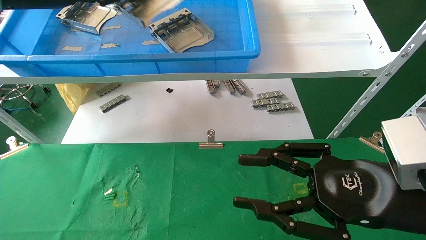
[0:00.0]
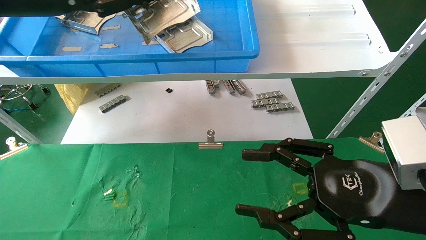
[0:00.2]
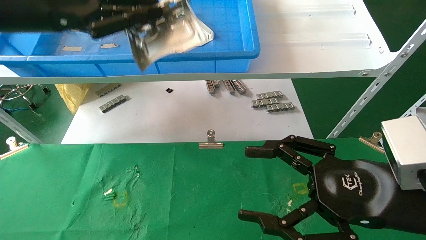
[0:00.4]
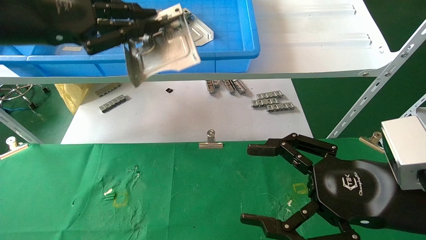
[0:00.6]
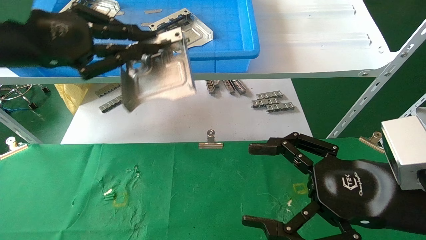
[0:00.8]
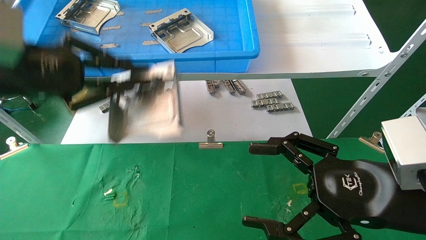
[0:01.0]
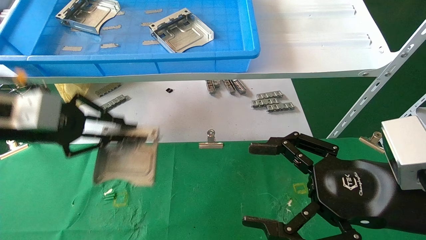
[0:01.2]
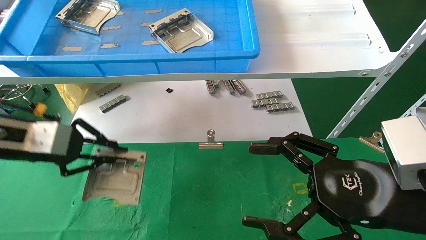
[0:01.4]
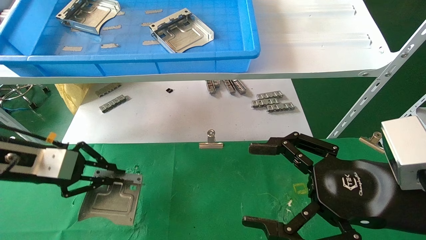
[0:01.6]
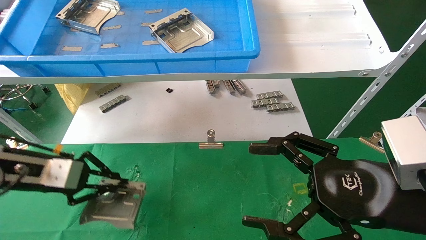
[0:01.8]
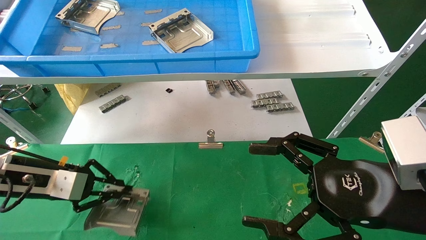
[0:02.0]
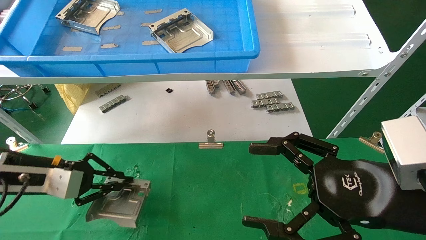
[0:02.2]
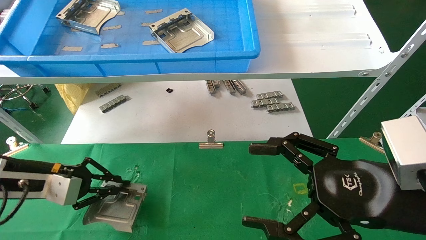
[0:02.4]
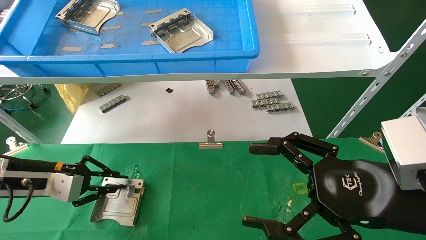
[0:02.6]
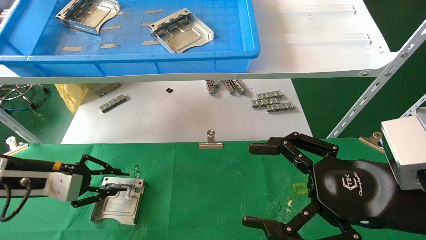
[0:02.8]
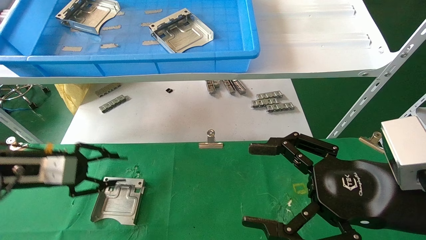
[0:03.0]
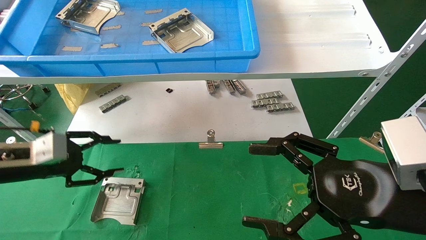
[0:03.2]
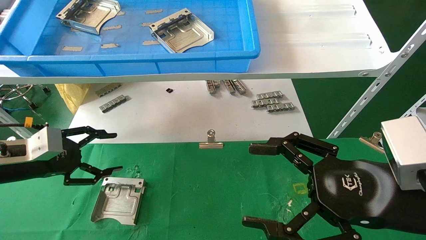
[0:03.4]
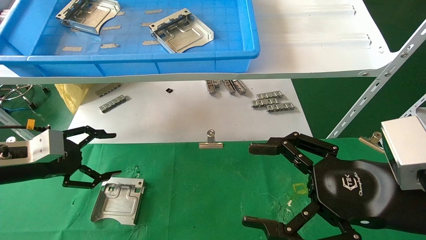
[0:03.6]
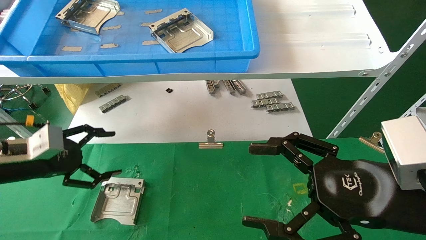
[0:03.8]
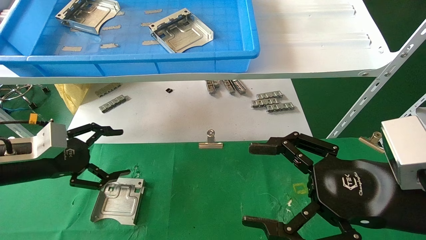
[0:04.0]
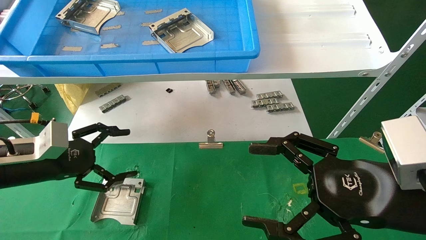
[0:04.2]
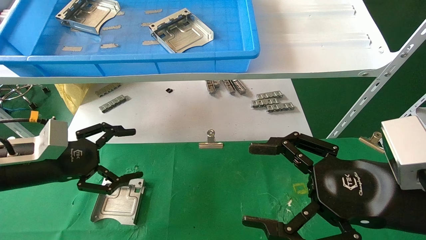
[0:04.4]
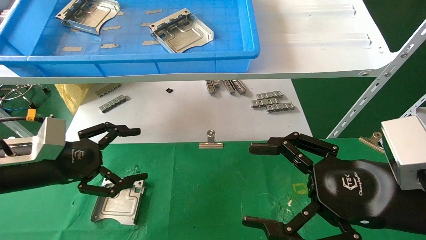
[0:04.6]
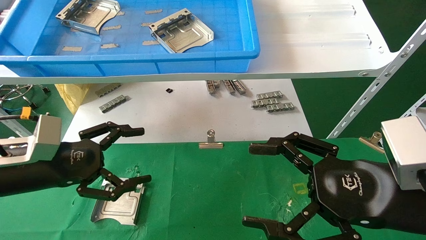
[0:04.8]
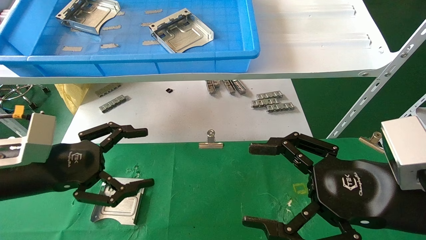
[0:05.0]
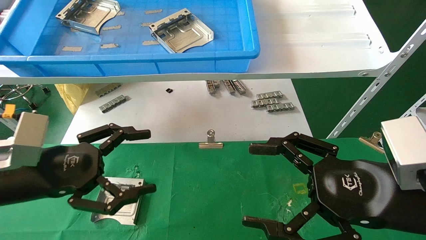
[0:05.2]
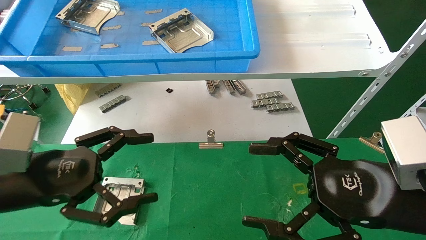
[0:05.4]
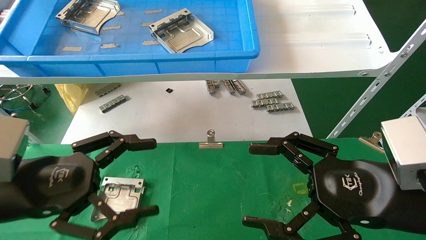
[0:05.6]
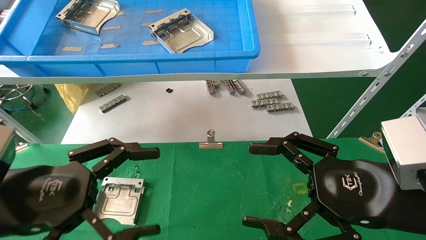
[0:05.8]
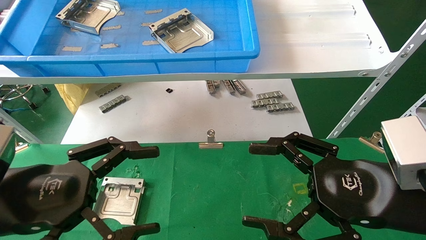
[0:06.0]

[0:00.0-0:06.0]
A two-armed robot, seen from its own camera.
Task of the whole recording: use the mechanical arm to pick up the parts and place them on the table.
Step, 0:00.0 to 0:02.8: Place the hard drive bracket into the box.
0:00.0 to 0:01.6: The right gripper opens up. Meanwhile the left gripper shifts about 25 cm downward.
0:01.6 to 0:03.0: The left gripper moves about 5 cm.
0:03.0 to 0:04.4: The left gripper changes place by some 5 cm, and opens its fingers.
0:04.4 to 0:06.0: The left gripper shifts about 15 cm backward and to the right.

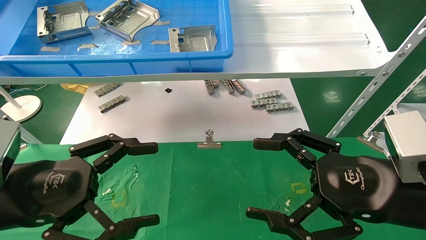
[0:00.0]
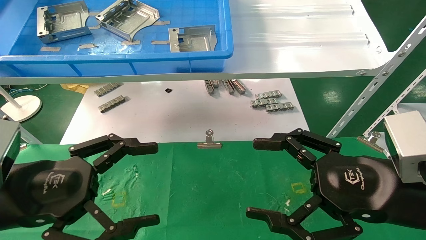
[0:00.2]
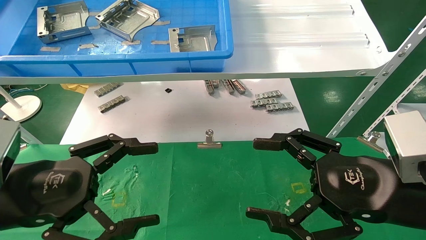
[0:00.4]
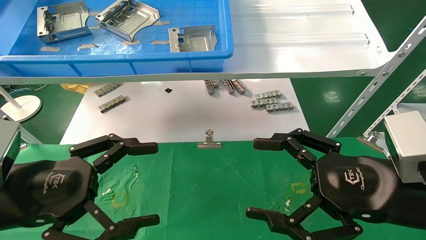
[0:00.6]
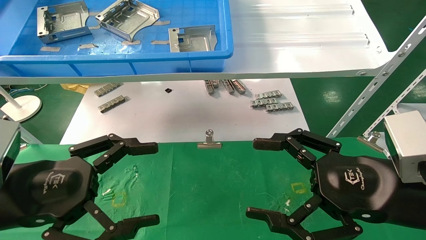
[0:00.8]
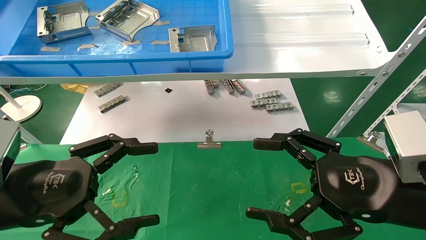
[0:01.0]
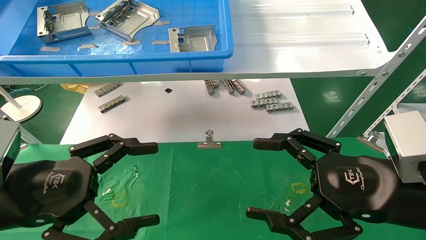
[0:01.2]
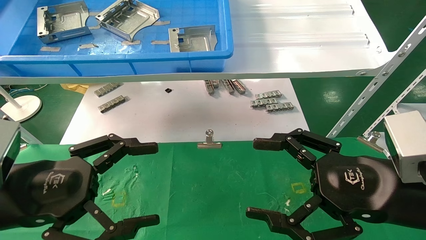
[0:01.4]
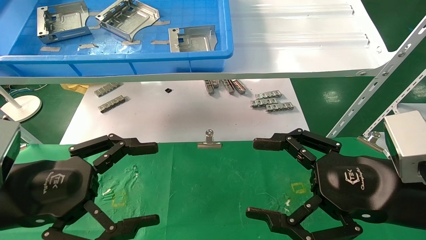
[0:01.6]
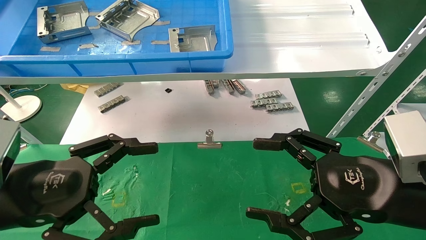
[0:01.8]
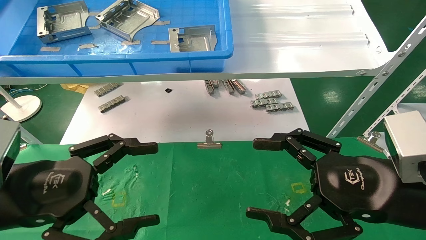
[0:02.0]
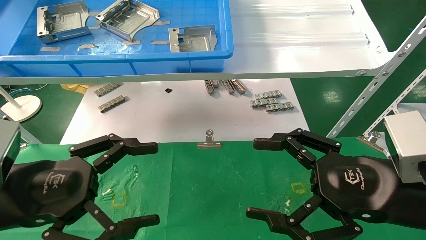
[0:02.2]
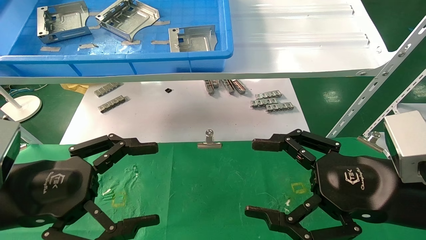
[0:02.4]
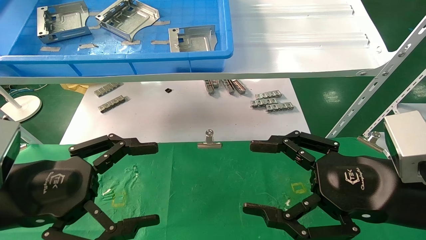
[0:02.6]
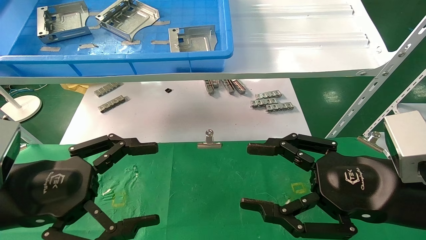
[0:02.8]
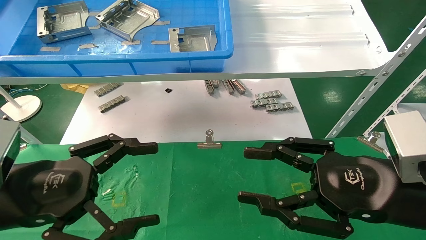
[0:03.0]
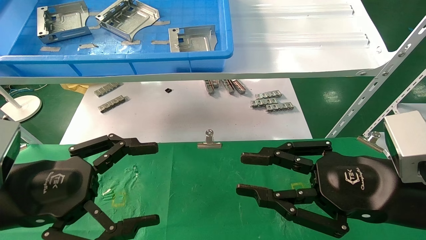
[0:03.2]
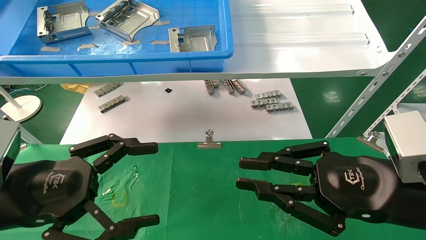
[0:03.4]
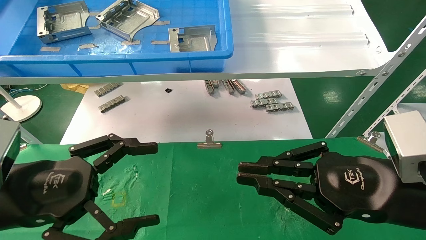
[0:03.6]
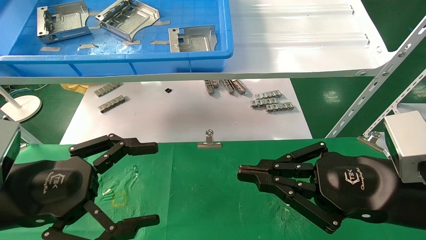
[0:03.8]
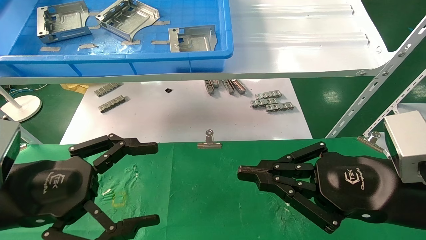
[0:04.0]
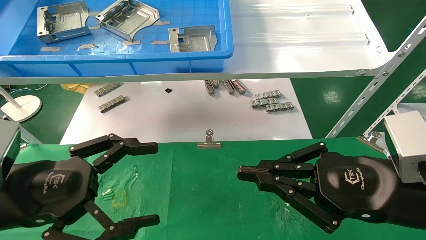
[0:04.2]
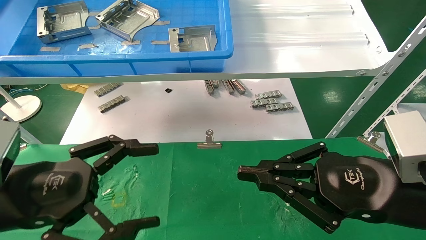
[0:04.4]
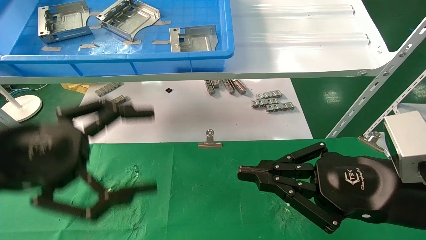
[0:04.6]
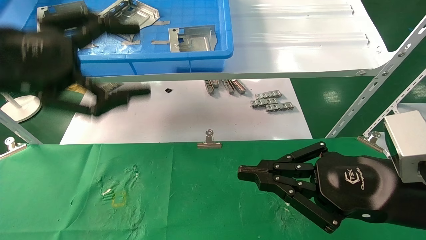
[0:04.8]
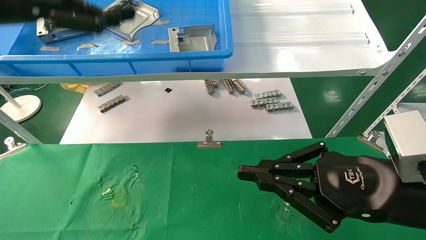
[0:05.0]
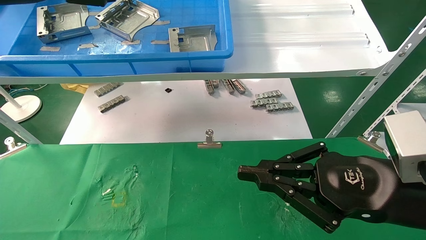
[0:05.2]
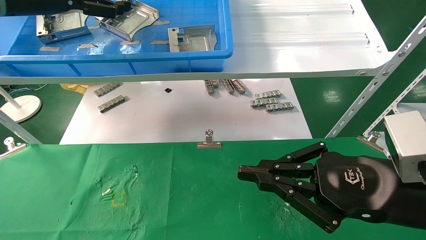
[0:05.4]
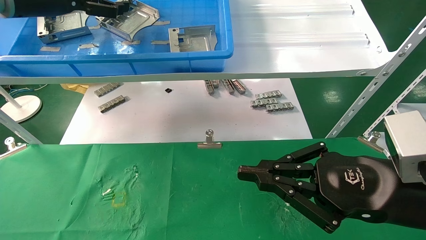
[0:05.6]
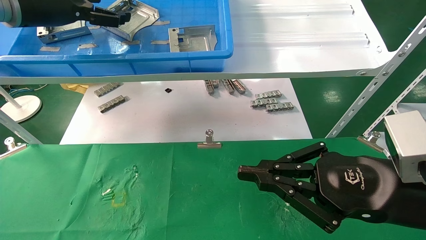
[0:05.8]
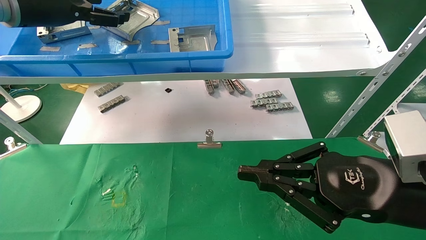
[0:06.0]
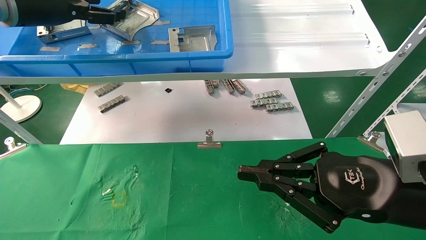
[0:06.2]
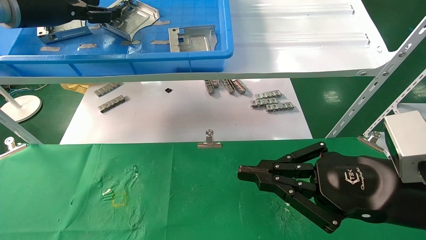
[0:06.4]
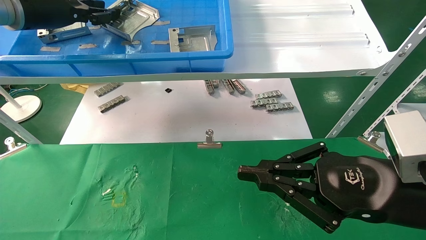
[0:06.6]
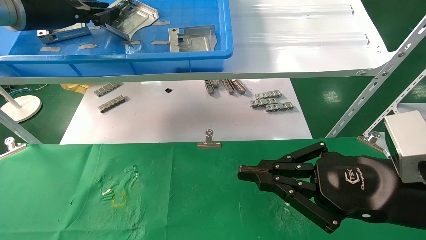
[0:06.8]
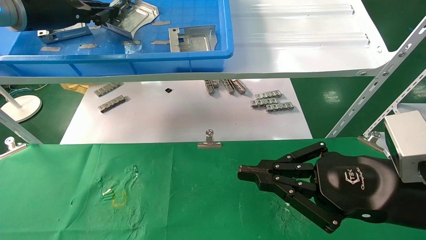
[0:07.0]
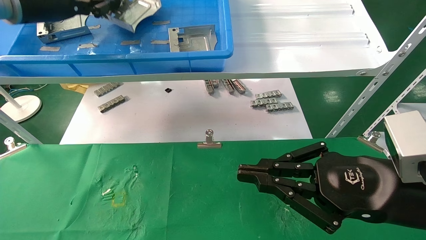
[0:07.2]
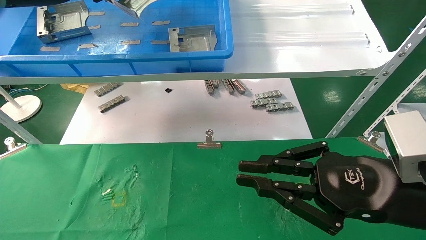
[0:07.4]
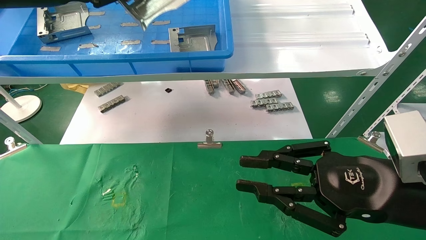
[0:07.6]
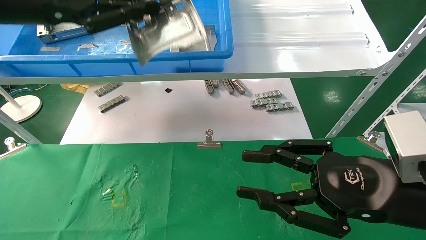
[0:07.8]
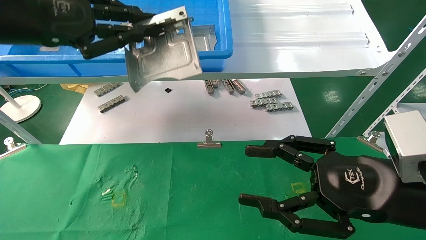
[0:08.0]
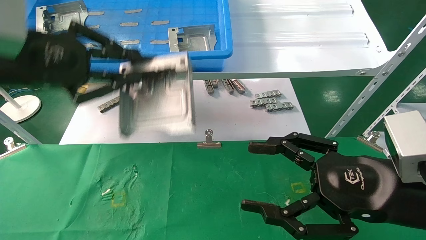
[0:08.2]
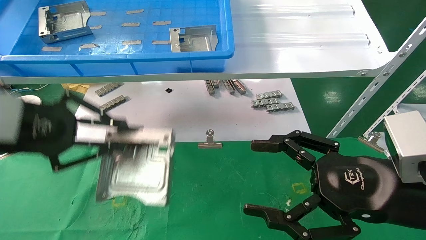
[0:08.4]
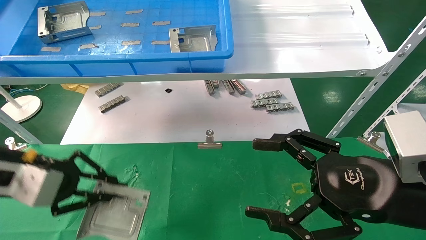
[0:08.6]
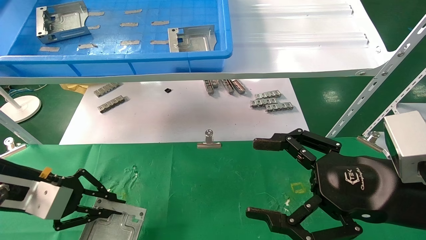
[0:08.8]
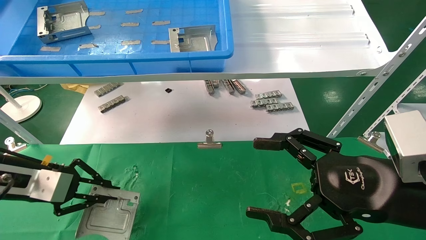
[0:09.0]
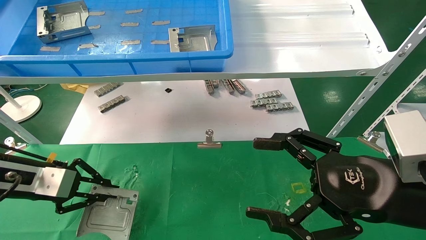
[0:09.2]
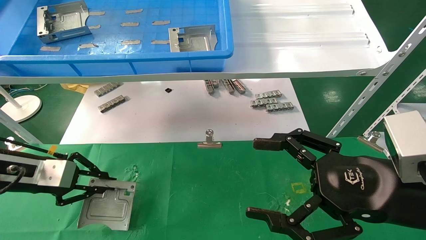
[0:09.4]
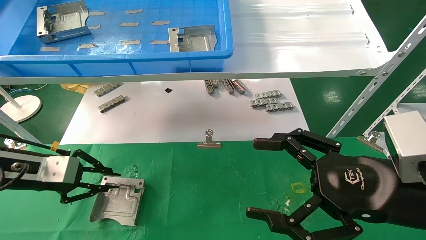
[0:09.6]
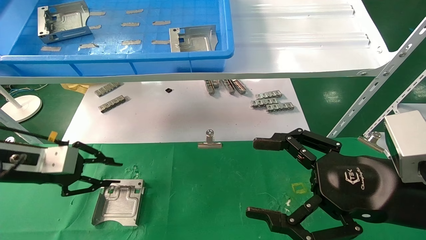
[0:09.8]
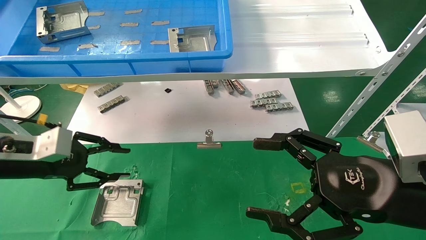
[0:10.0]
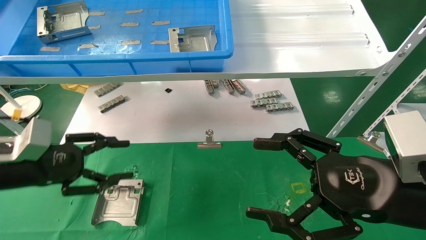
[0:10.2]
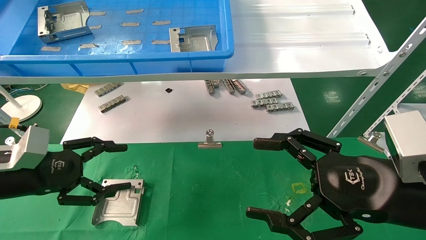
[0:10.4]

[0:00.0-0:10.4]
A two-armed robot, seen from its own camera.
Task of the whole recording: use the mechanical arm to pick up the parts and place them on the table.
Step, 0:04.8 to 0:06.8: Pick up the hard drive bracket from the feeding area.
Step, 0:07.0 to 0:10.0: Place the hard drive bracket into the box.
0:00.0 to 0:03.0: Neither gripper changes place.
0:03.0 to 0:04.4: The right gripper closes up.
0:04.4 to 0:06.0: The left gripper moves forward and upward, some 30 cm.
0:06.0 to 0:07.4: The left gripper closes its fingers.
0:07.4 to 0:09.0: The right gripper opens; the left gripper heads downward, covering approximately 25 cm.
0:09.0 to 0:10.4: The left gripper opens up.
